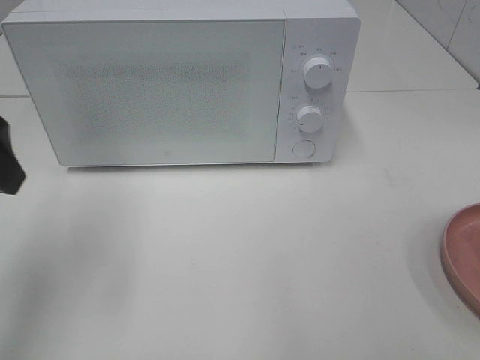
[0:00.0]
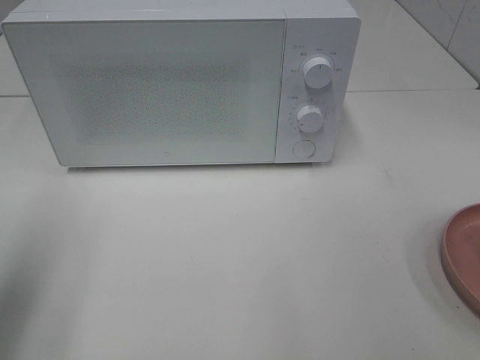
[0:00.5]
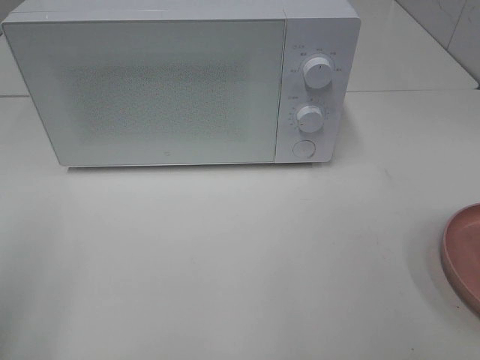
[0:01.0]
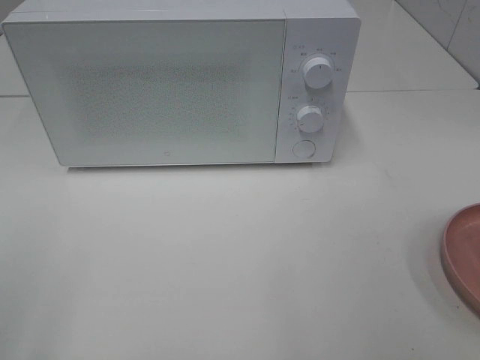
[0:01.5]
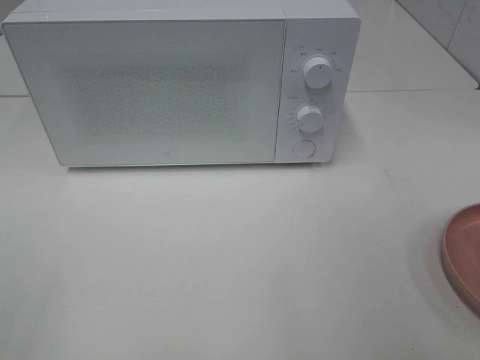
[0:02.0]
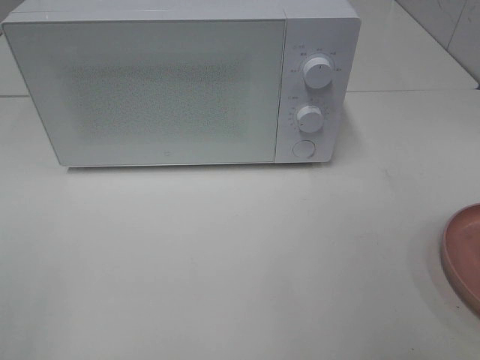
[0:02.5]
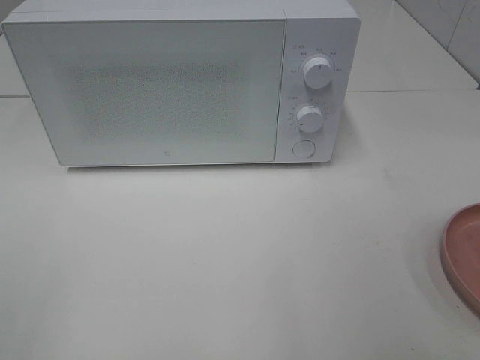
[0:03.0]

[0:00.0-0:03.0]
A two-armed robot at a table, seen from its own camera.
Task of the whole recording: Heat the burger.
0:00.0 to 0:01.5: The left gripper moves backward, about 20 cm.

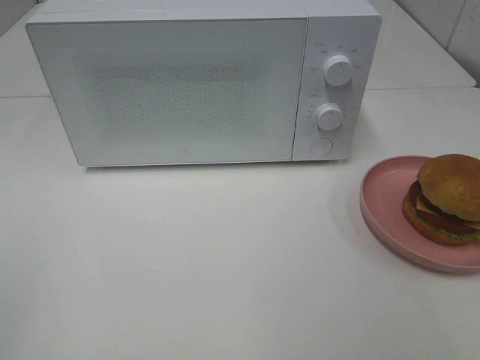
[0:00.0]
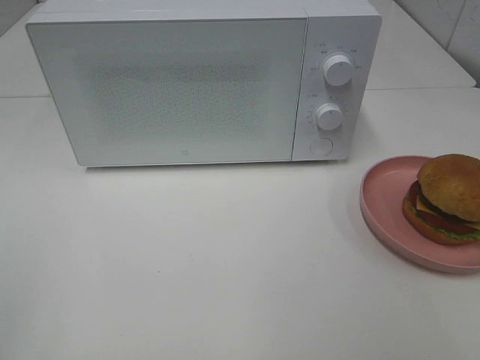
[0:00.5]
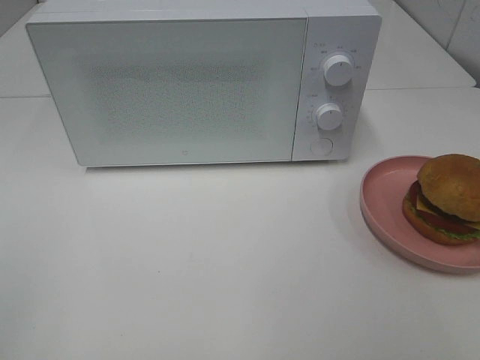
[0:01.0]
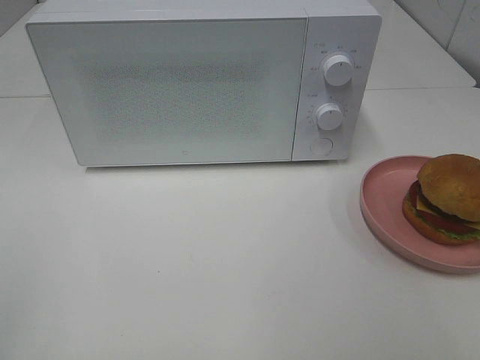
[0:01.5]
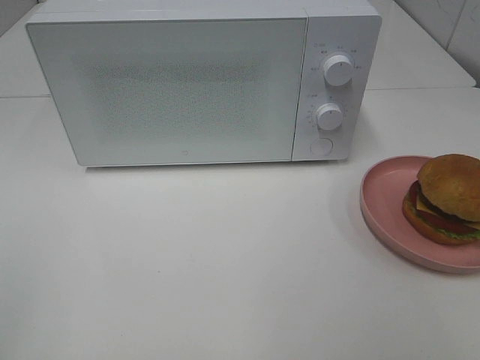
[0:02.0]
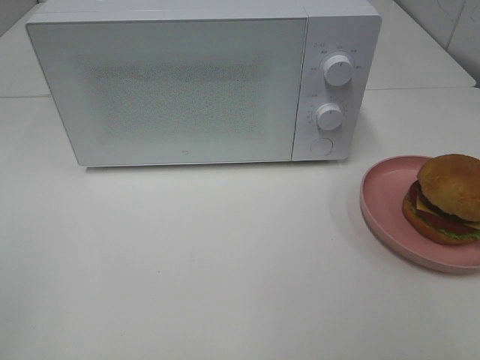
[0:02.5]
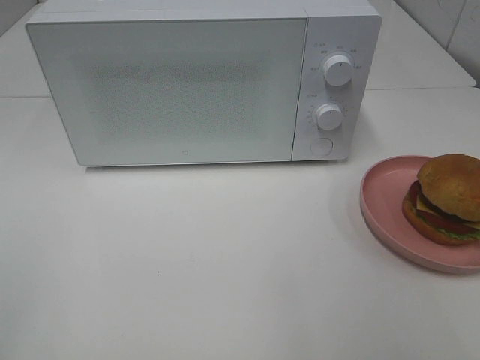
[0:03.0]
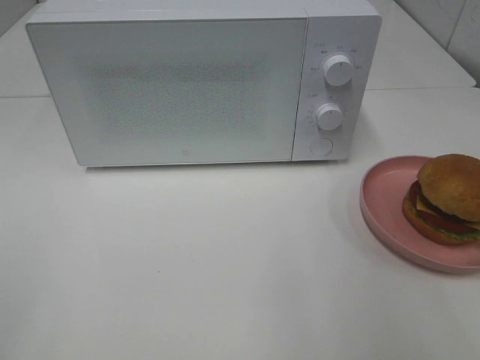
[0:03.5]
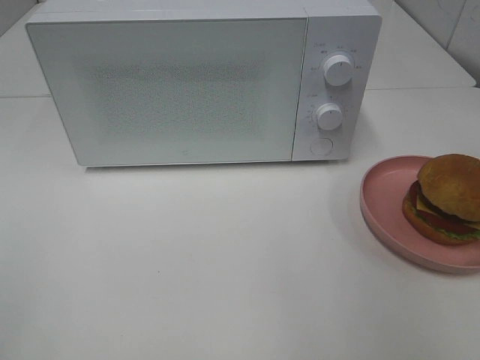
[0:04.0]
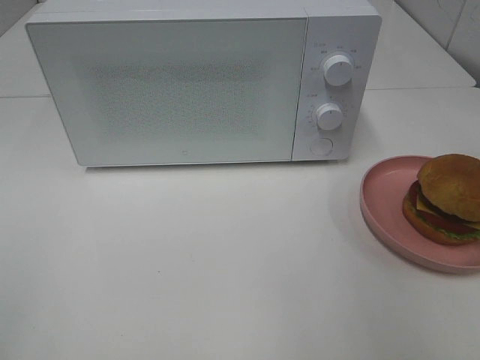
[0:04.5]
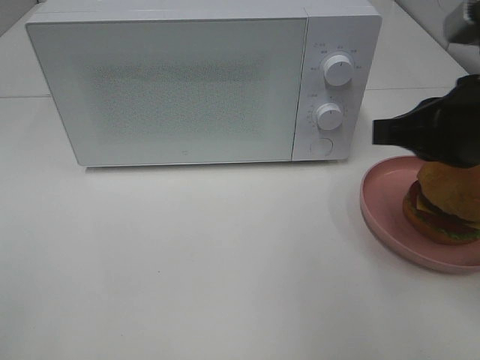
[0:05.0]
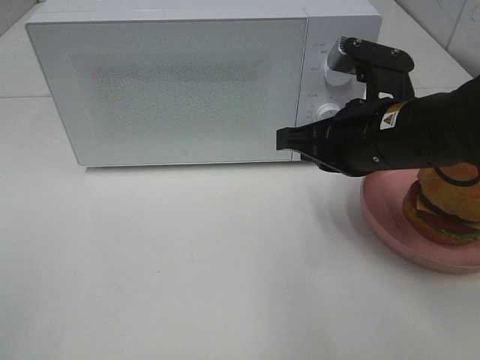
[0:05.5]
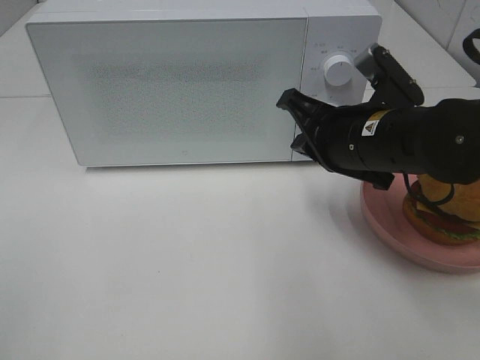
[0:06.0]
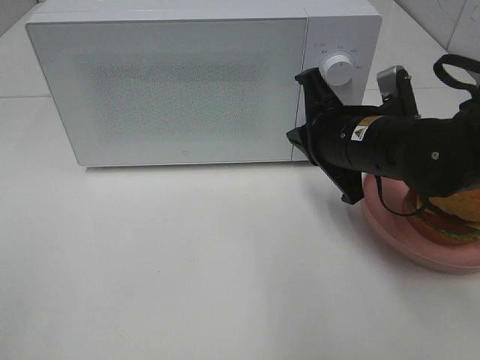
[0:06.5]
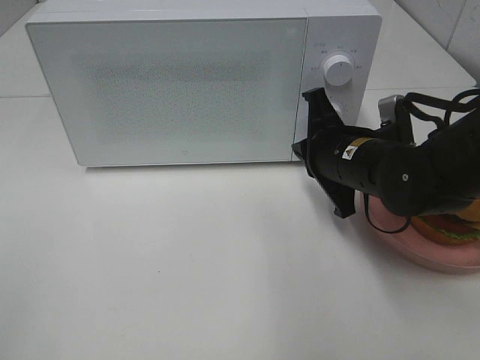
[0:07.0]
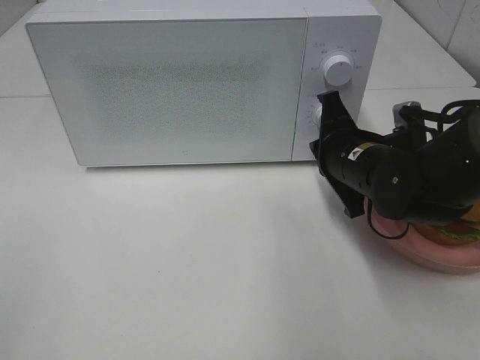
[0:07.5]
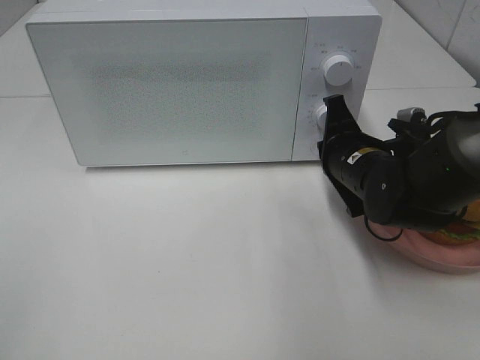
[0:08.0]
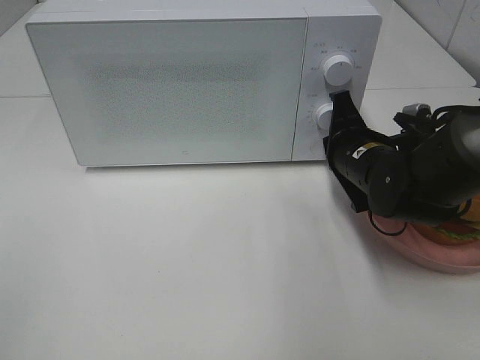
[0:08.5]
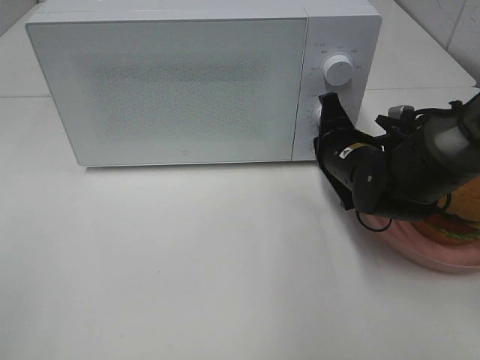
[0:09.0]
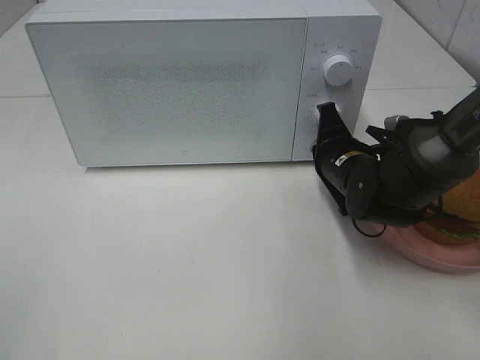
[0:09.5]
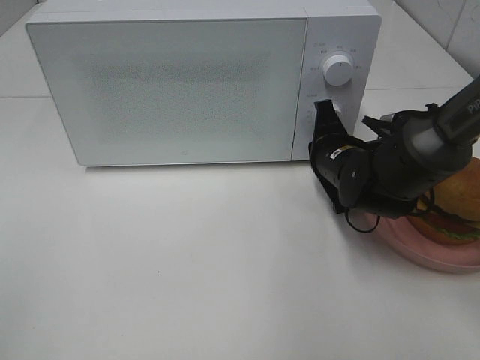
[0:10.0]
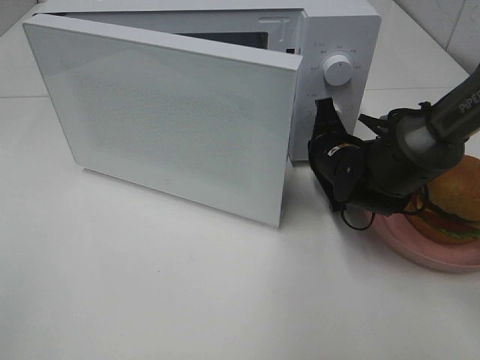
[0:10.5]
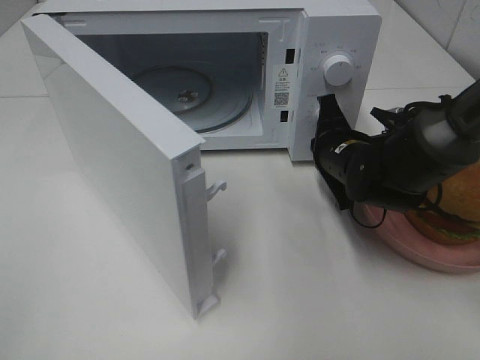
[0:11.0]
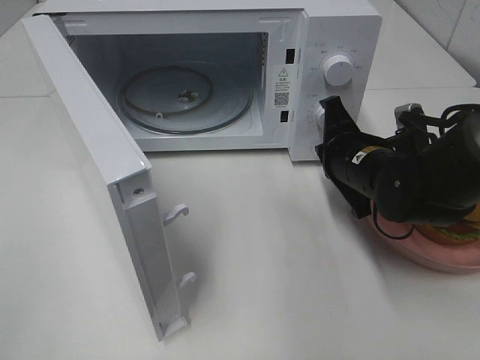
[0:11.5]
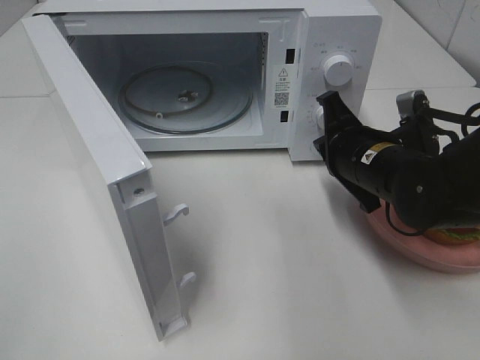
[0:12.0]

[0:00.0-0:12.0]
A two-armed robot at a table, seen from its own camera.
Task of the whole recording: Heat the burger.
Step, 0:00.0 to 0:11.0: Right hand: press the switch.
0:00.0 to 0:02.0: The two grippers keep their place.
0:04.0 to 0:06.0: The right gripper travels to the left, downward and forward by about 20 cm.
0:06.0 to 0:08.0: The right gripper heads downward, covering approximately 5 cm.
0:08.0 to 0:10.0: There are only small adjustments of the grippers.
0:10.0 to 0:12.0: The right gripper is displaced backward by about 5 cm.

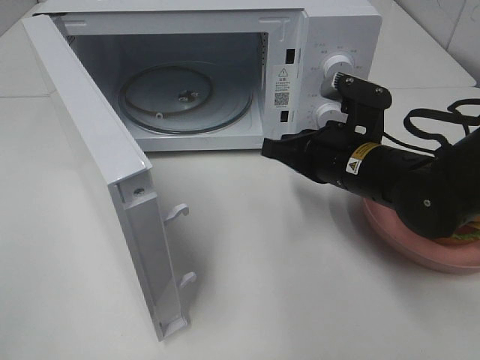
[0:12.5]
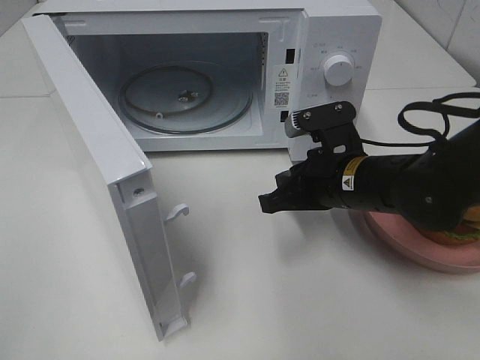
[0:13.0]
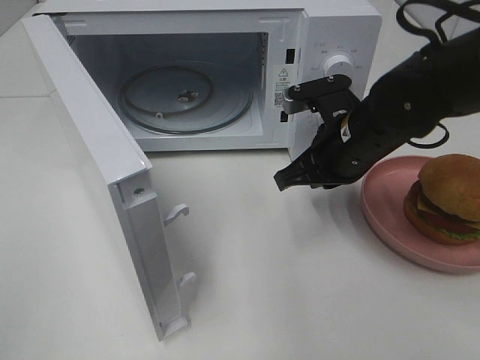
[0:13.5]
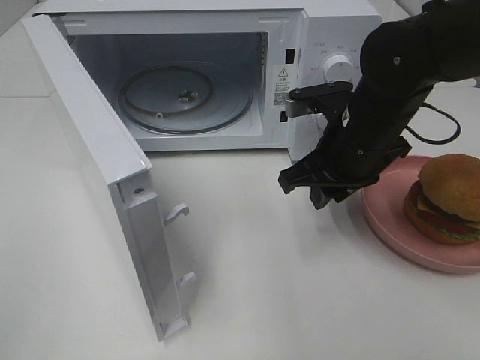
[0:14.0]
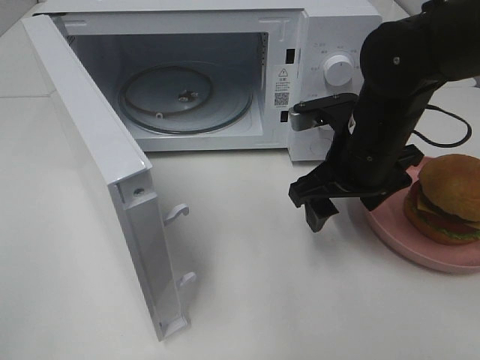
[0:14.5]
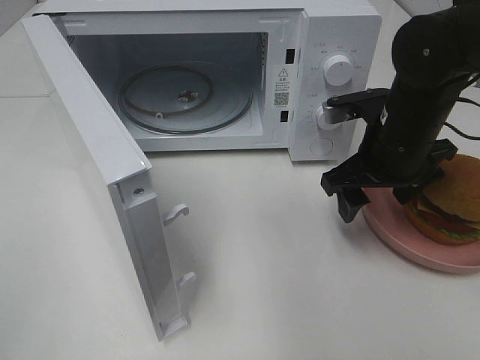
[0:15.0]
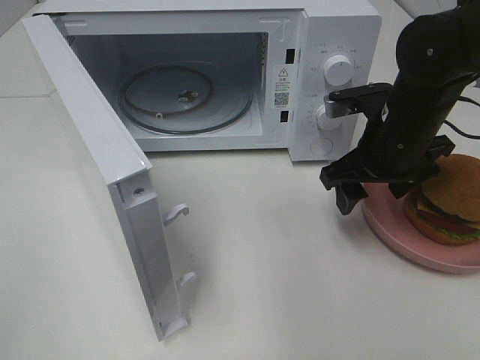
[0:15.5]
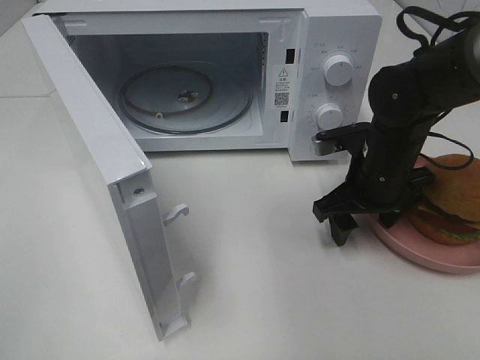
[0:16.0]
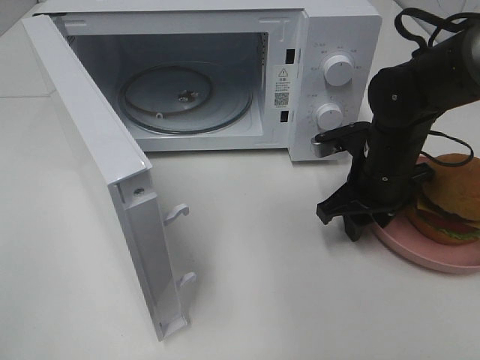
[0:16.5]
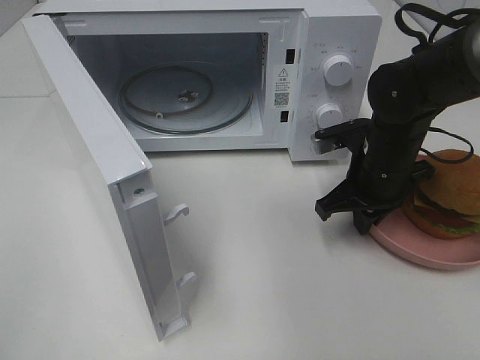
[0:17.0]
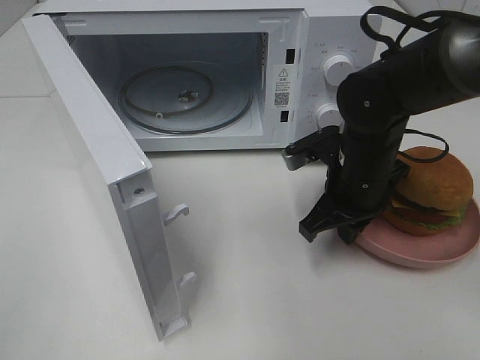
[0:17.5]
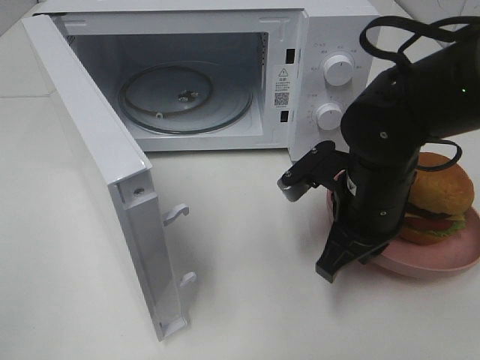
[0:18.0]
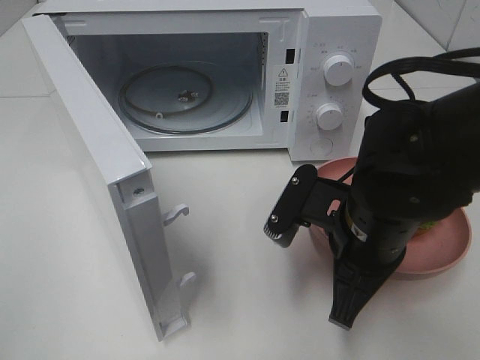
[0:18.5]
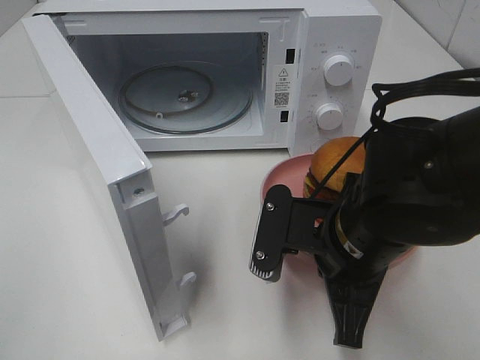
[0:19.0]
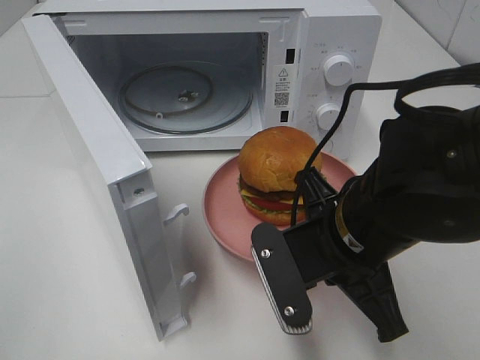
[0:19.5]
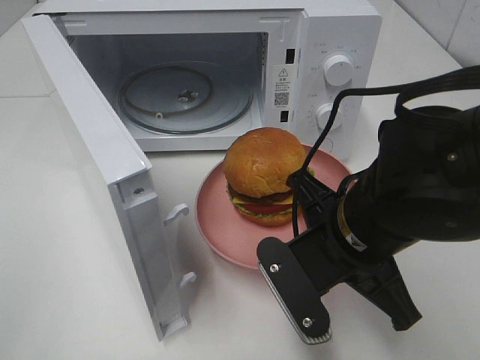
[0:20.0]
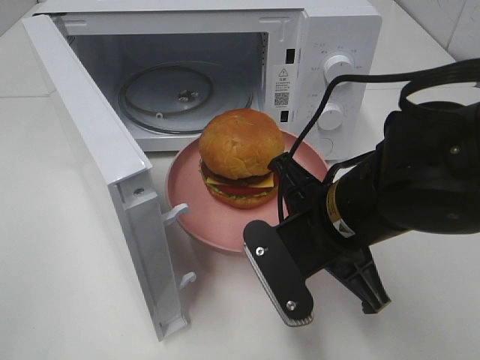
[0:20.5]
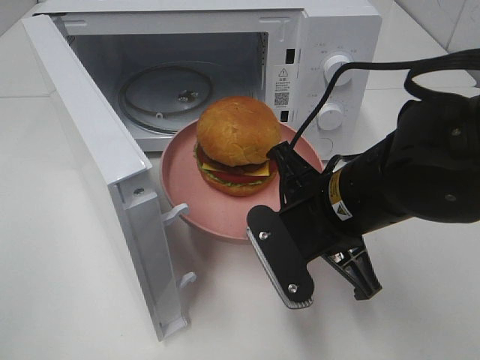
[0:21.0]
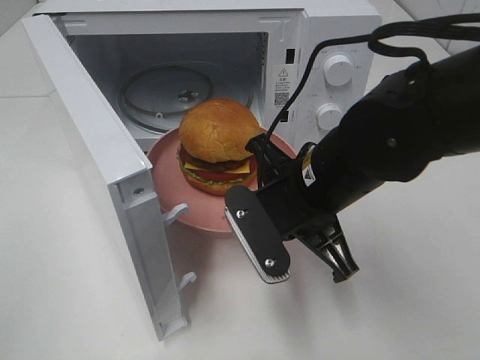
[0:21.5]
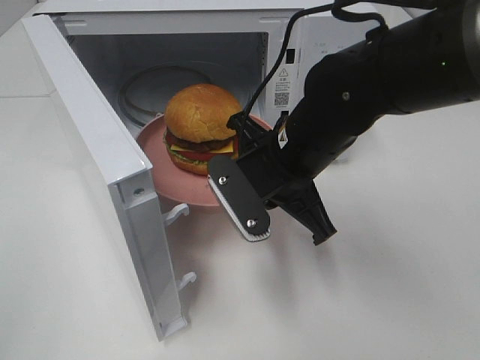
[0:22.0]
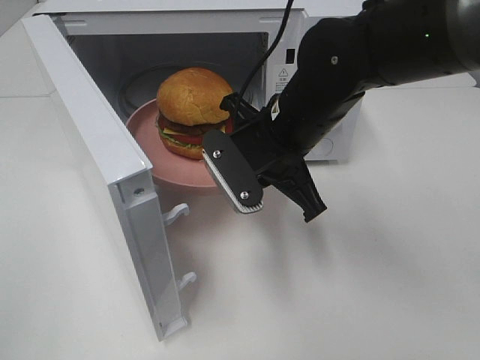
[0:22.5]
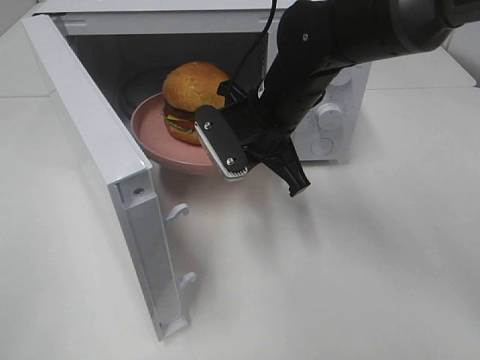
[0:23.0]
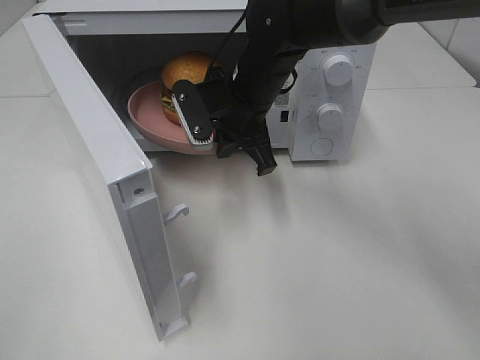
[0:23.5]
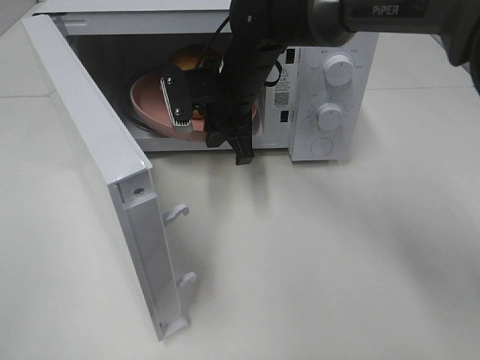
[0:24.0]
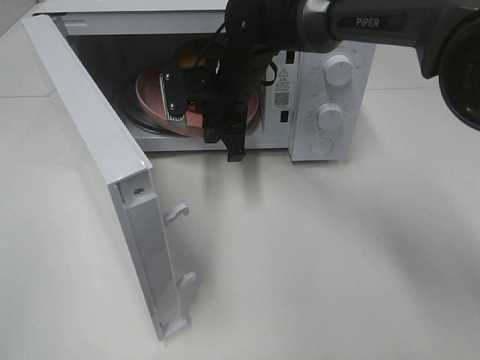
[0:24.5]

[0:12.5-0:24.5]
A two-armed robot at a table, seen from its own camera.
Task of the whole recording: Heat the burger.
Step, 0:12.5 to 0:17.0: Right hand: grab the plate with the hamburger.
0:12.5 to 0:14.5: The right gripper opens up.
0:14.5 to 0:16.5: The right gripper is displaced downward by approximately 5 cm, and closes.
0:16.5 to 0:18.5: The right gripper heads backward and to the left, covering roughly 15 cm, and closes.
0:20.5 to 0:22.5: The right gripper heads forward, covering some 10 cm.
0:22.5 to 0:24.5: The right gripper goes some 15 cm forward and to the left.
